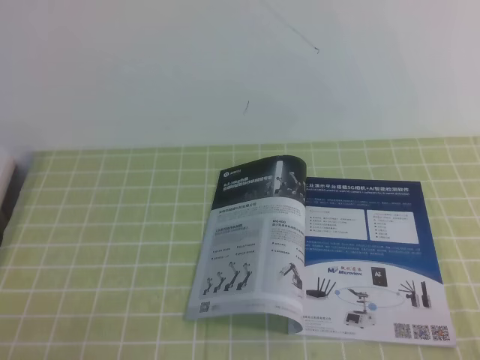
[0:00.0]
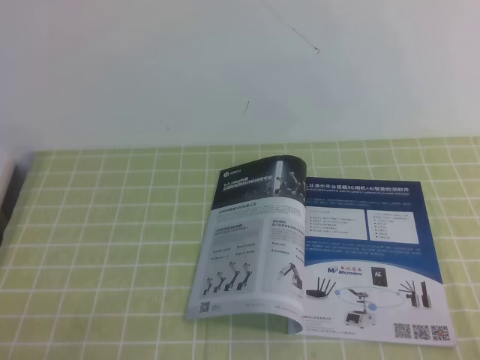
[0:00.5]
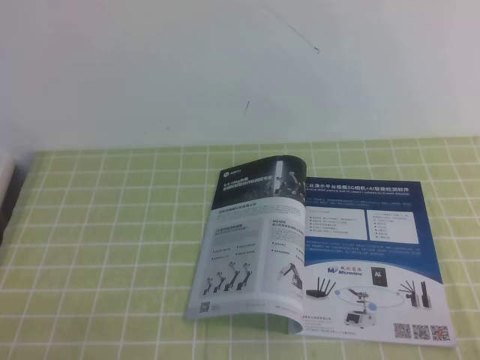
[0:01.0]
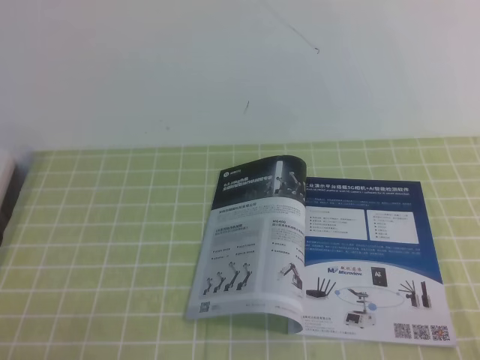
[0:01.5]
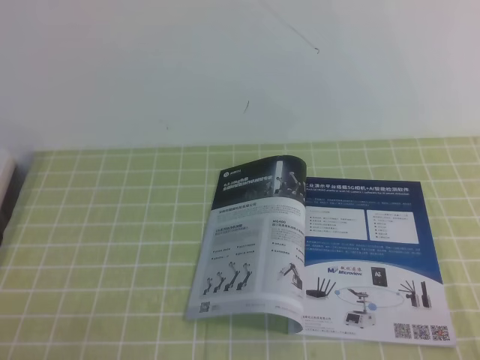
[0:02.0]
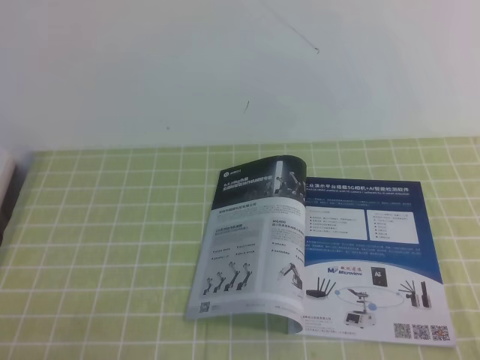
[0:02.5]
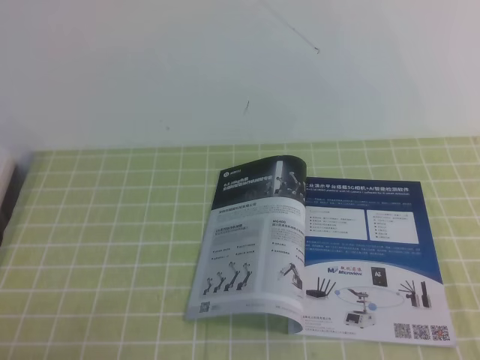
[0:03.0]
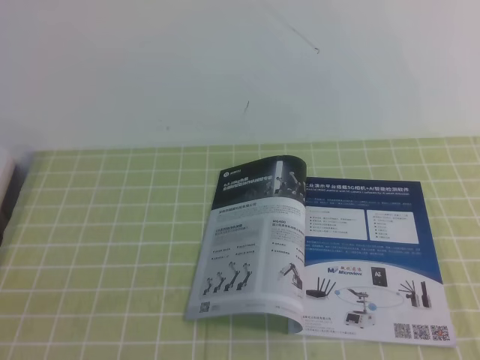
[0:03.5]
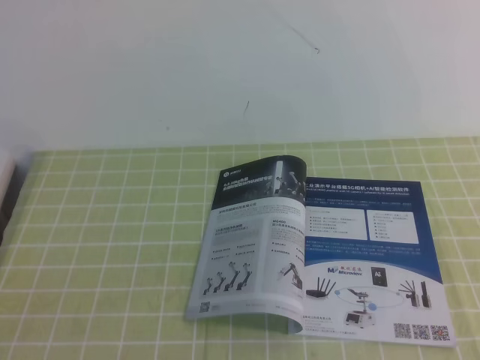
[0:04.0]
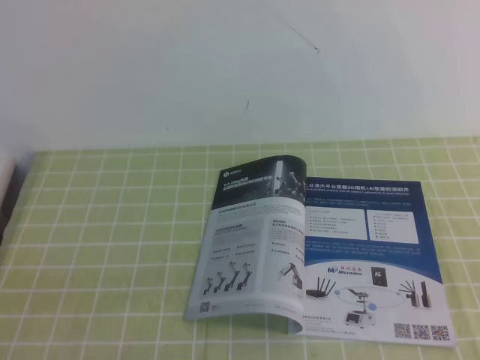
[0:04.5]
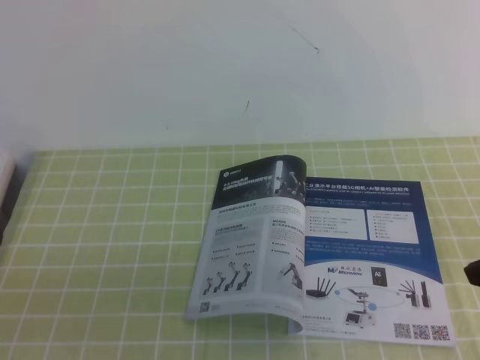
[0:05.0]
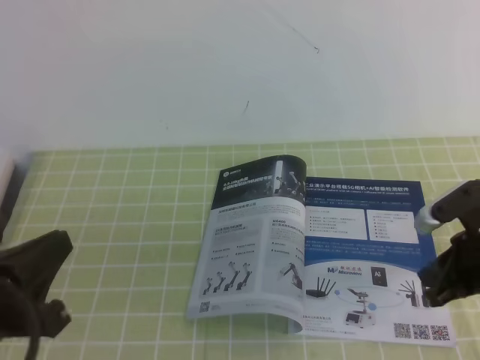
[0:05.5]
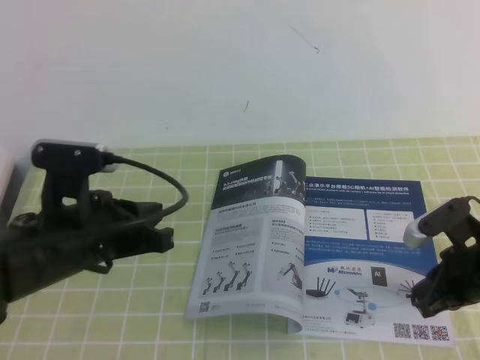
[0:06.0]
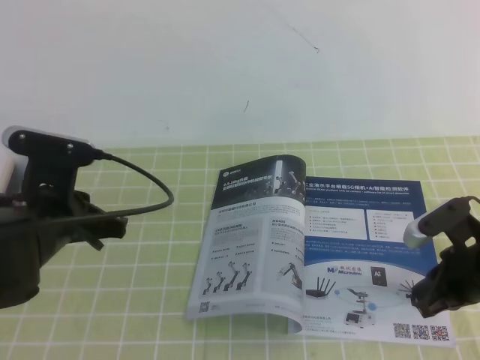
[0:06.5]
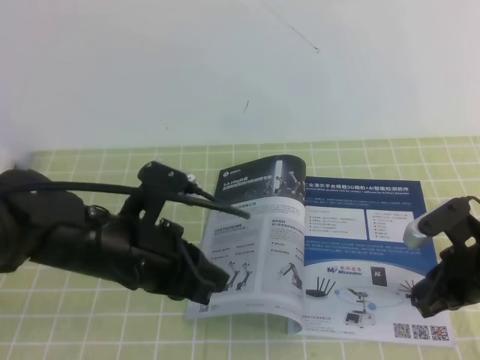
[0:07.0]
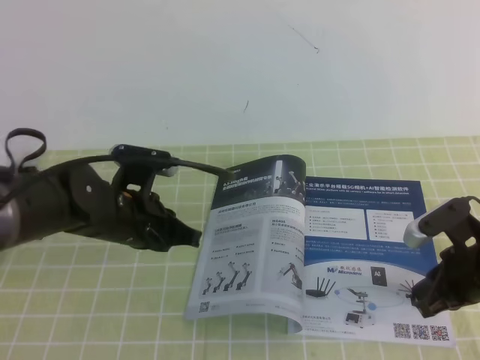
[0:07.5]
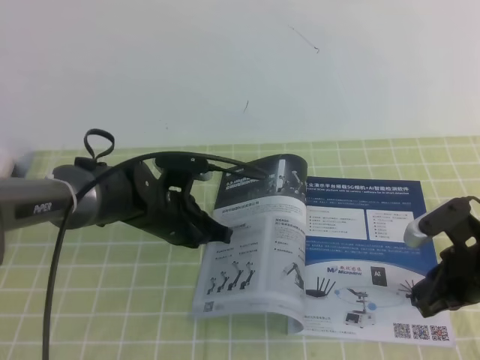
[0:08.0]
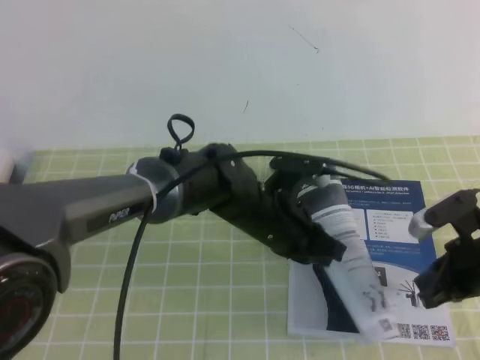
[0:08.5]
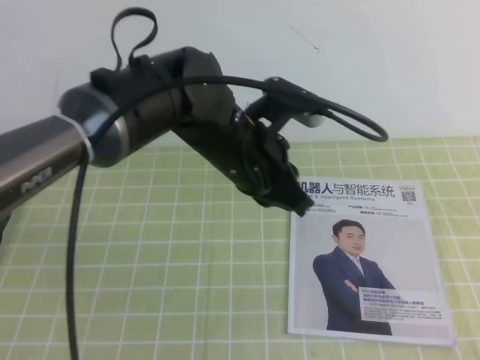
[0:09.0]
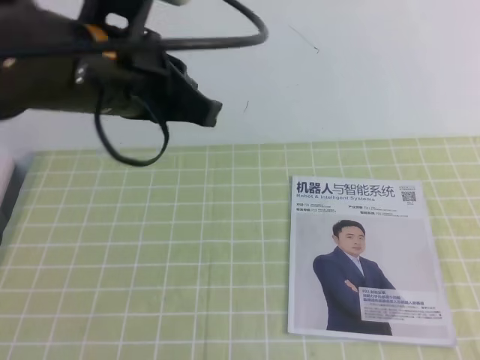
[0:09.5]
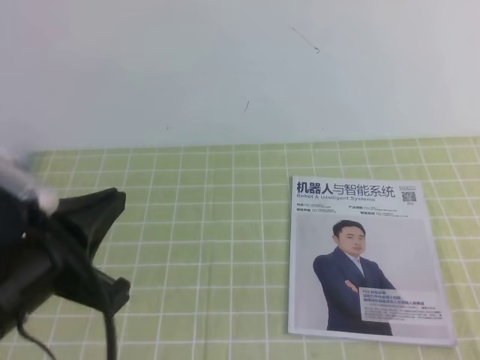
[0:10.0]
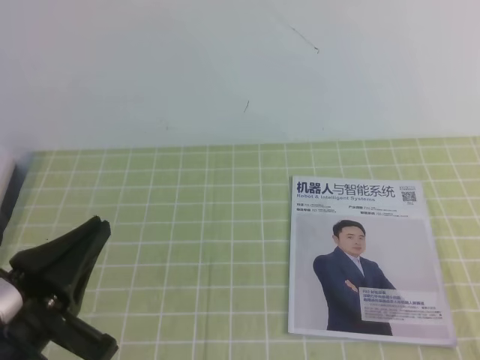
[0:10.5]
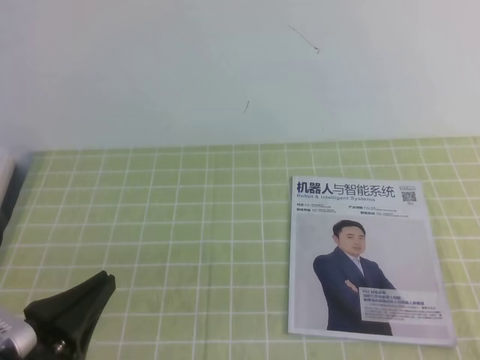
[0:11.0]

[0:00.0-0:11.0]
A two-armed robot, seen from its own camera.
Task of the whole recording: on the green tablecloth, hold the book with one hand and close it with the other.
0:00.0 to 0:02.0: Both grippers stay put.
0:03.5 to 0:05.5: The right gripper travels forward and downward by about 25 cm; the left gripper moves forward, about 10 cm.
0:05.5 to 0:07.5: The left gripper travels forward and to the right by approximately 20 cm.
0:07.5 to 0:09.0: The right gripper goes some 15 cm upward; the left gripper shifts about 15 cm to the right and upward.
0:09.0 to 0:11.0: The left gripper moves backward and to the left, about 30 cm, while the right gripper shifts approximately 20 cm backward.
